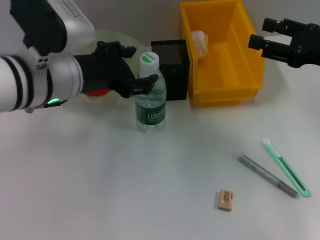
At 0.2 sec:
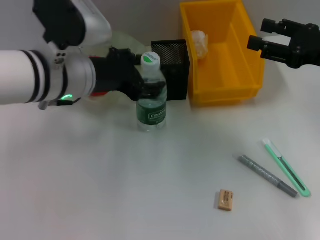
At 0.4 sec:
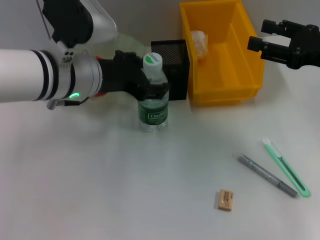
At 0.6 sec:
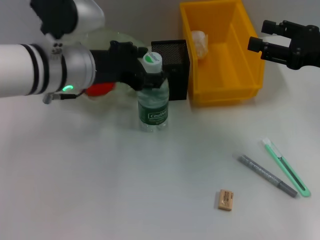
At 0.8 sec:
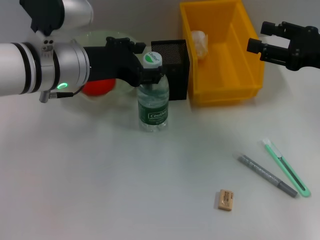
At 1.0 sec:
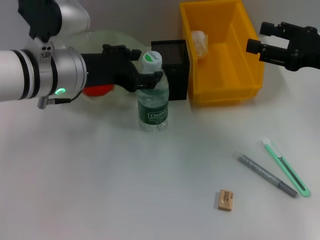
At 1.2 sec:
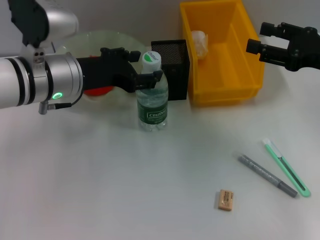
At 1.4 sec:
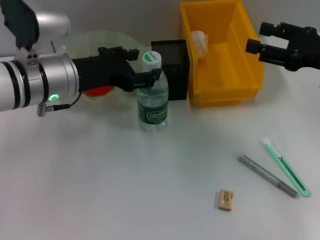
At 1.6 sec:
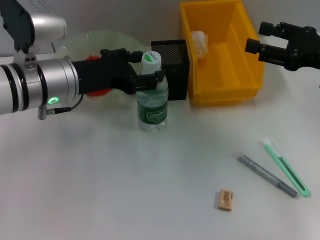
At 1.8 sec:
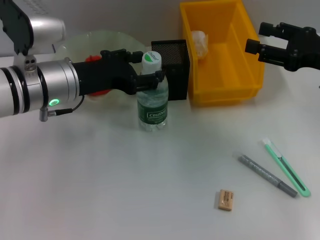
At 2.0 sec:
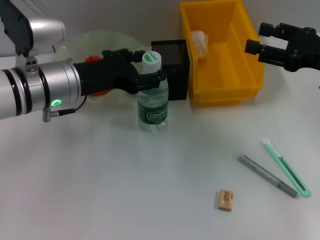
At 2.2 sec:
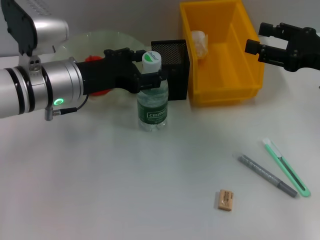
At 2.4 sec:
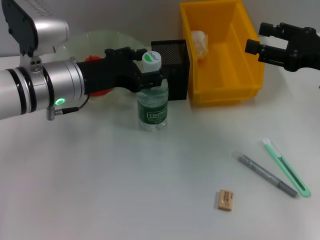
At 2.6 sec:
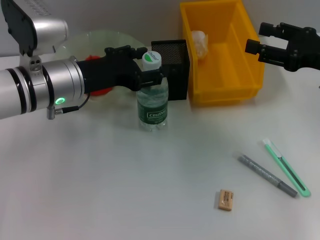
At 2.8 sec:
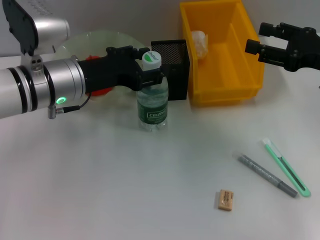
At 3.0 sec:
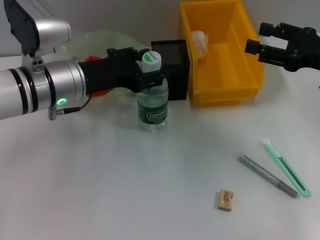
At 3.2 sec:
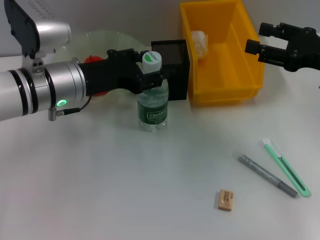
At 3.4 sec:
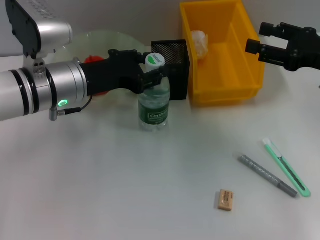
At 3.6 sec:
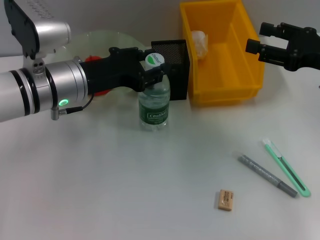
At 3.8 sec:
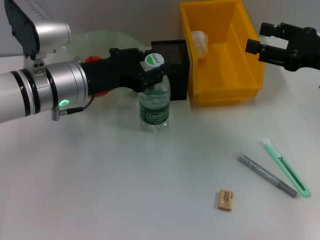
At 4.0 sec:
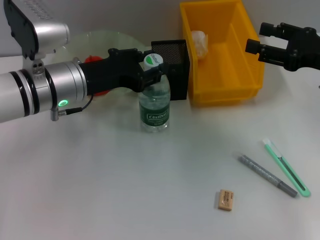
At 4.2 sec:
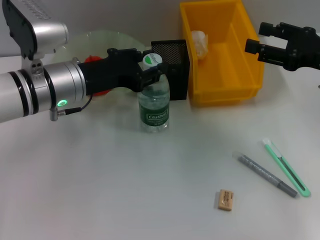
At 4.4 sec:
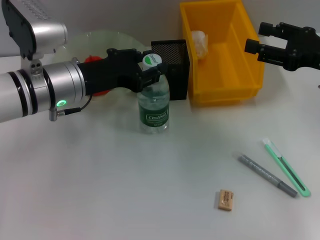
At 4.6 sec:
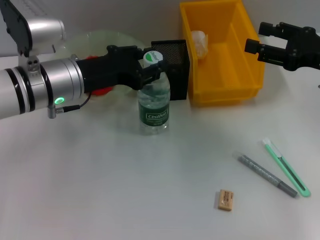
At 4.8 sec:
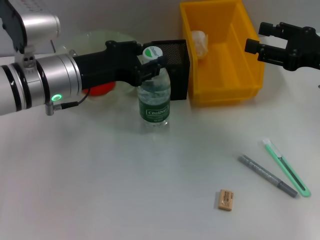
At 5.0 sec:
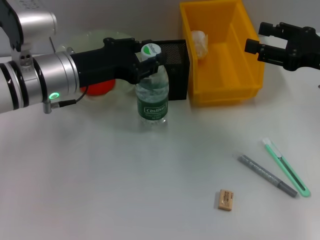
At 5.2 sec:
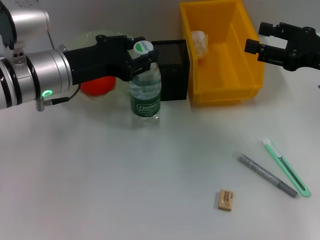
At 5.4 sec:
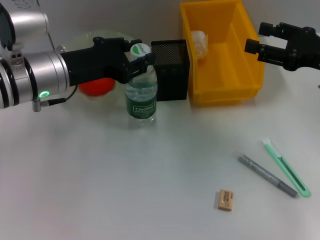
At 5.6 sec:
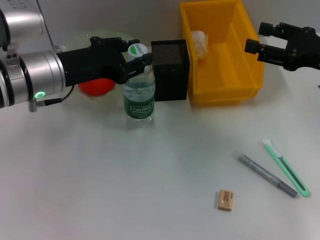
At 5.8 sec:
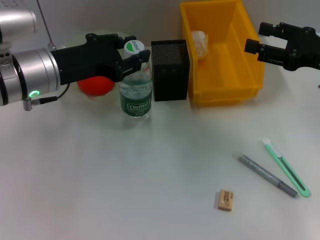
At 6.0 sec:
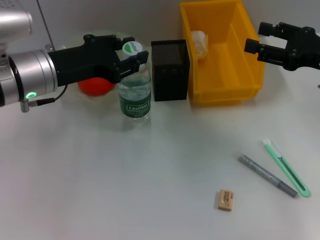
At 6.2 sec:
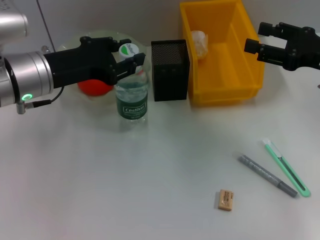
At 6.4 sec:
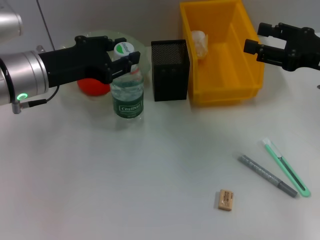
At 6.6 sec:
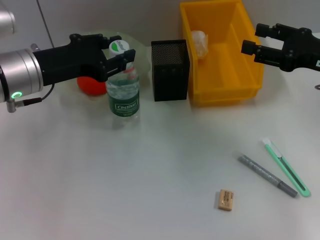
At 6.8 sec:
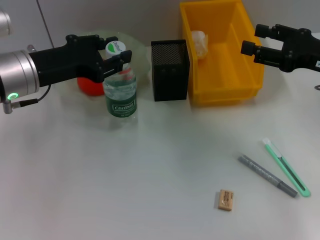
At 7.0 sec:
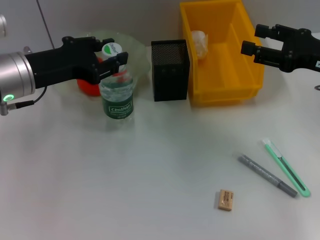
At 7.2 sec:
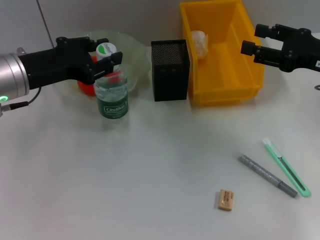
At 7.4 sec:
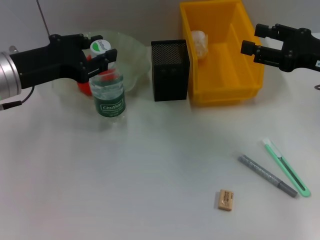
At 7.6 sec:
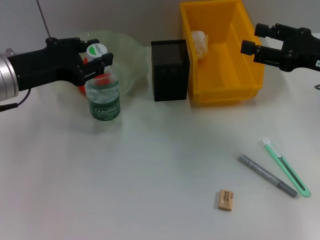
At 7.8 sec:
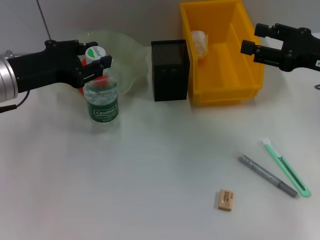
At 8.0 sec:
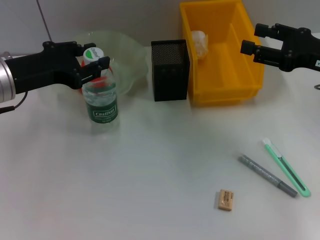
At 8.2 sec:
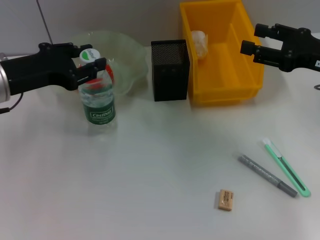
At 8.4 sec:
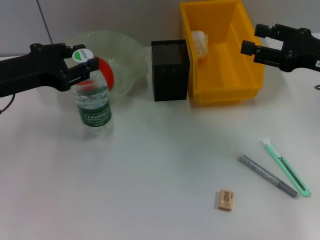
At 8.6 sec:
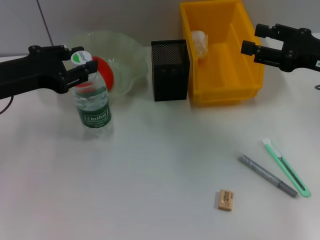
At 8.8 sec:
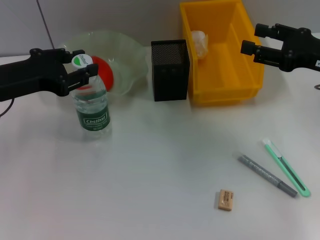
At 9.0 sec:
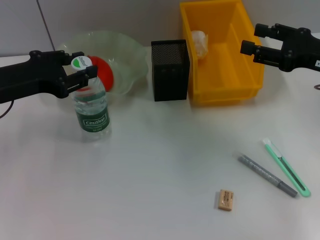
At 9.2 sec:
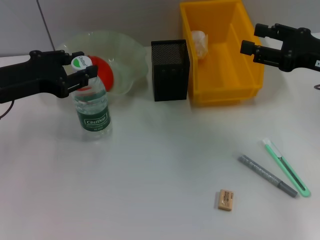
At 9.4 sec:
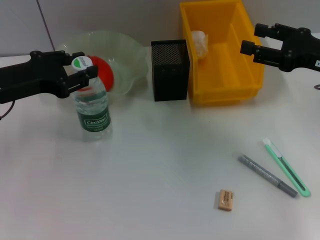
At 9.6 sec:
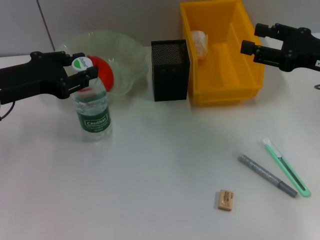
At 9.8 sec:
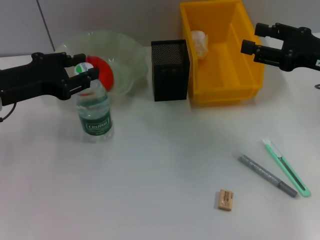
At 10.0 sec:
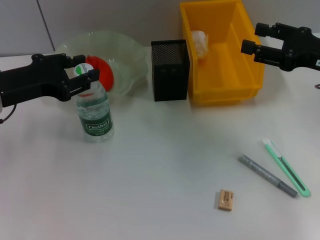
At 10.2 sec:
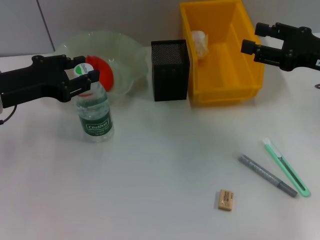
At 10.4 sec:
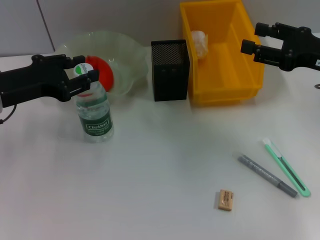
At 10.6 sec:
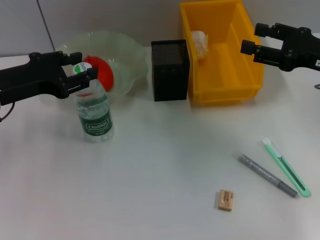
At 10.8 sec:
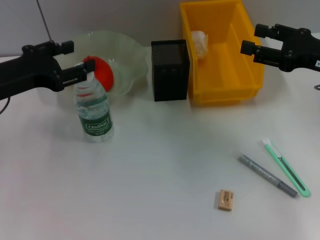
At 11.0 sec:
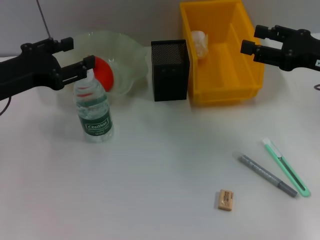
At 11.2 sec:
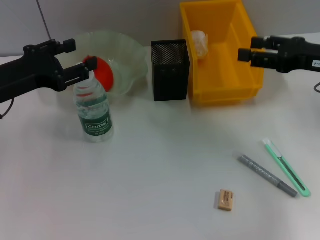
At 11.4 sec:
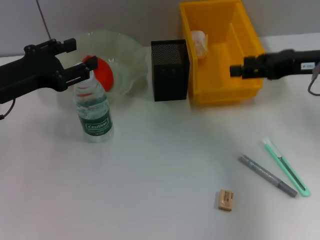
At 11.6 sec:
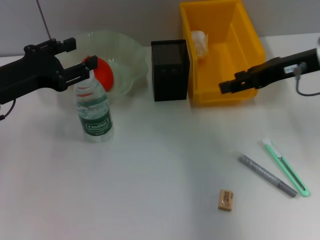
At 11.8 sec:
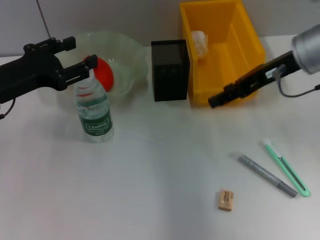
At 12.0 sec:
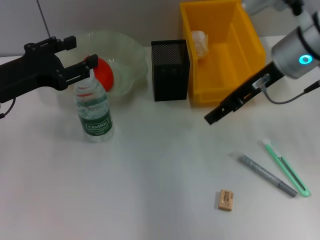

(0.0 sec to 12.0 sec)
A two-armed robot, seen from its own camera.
Step, 0.0 sec - 11.6 sec: Place the water bottle on the table with the left hand.
0.0 sec - 1.6 sec: The grippers move only a little.
1.6 sec - 3.0 sec: Both grippers stay about where they are.
3.0 sec - 4.4 sec: The left gripper closes.
4.4 sec - 6.0 sec: There are only small adjustments of the grippers.
6.0 sec - 7.6 sec: The grippers move only a little.
7.6 sec - 9.0 sec: The grippers move only a little.
9.0 sec - 10.4 sec: Both grippers stay put.
10.4 sec - 12.0 sec: The right gripper shifts some 10 cm to the left and forward.

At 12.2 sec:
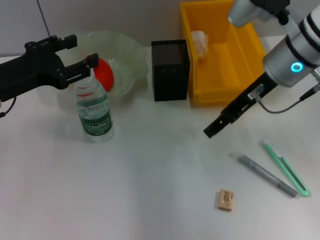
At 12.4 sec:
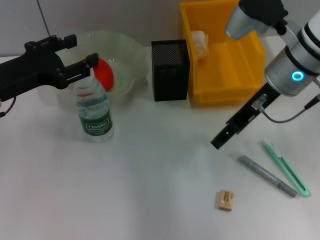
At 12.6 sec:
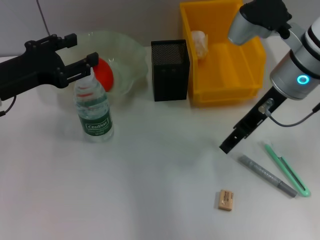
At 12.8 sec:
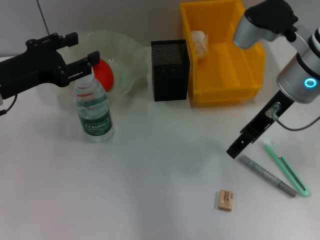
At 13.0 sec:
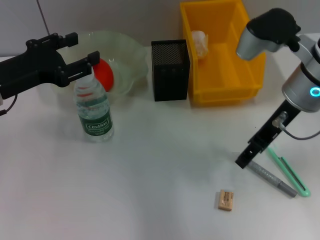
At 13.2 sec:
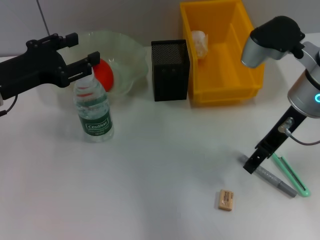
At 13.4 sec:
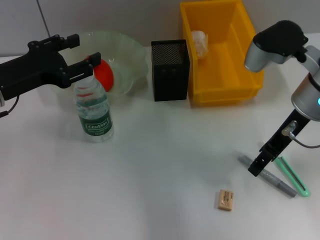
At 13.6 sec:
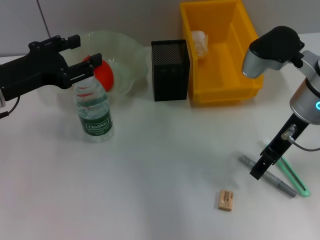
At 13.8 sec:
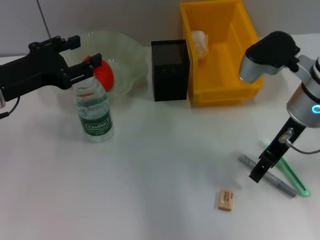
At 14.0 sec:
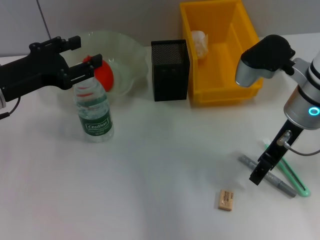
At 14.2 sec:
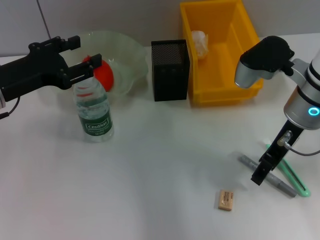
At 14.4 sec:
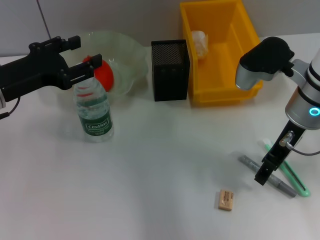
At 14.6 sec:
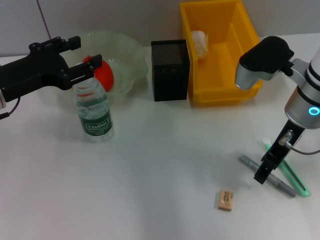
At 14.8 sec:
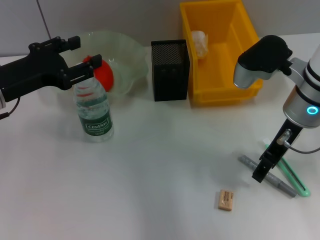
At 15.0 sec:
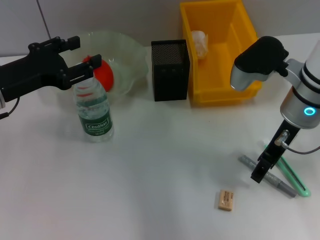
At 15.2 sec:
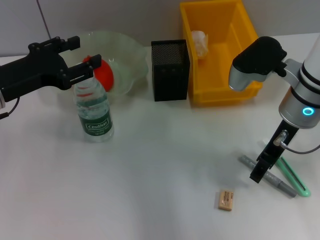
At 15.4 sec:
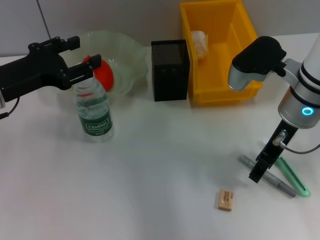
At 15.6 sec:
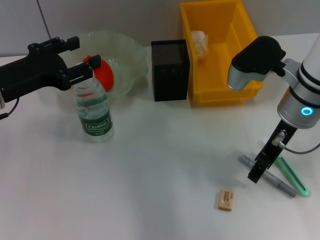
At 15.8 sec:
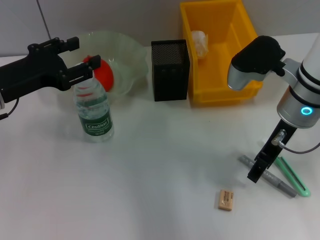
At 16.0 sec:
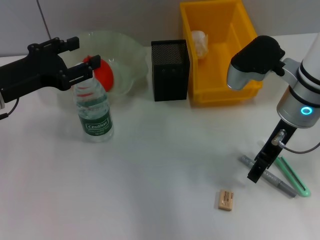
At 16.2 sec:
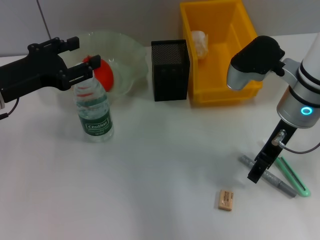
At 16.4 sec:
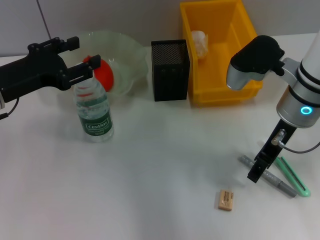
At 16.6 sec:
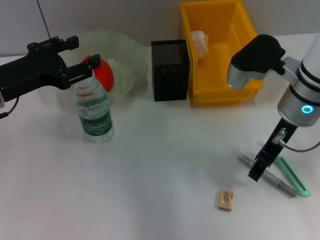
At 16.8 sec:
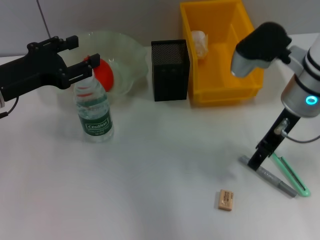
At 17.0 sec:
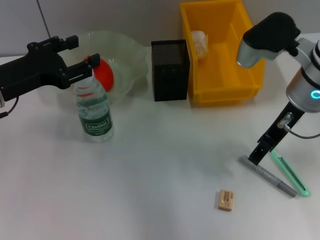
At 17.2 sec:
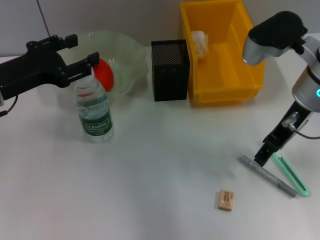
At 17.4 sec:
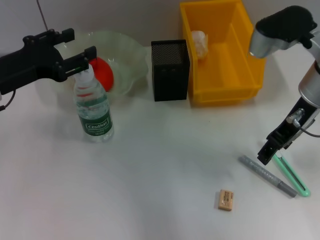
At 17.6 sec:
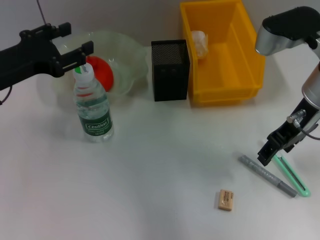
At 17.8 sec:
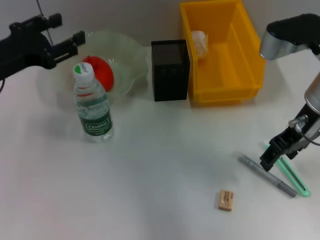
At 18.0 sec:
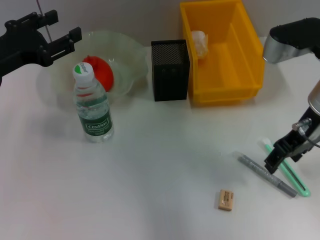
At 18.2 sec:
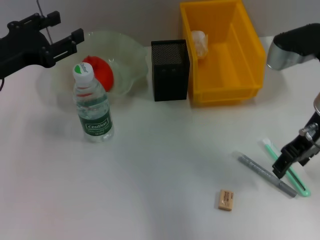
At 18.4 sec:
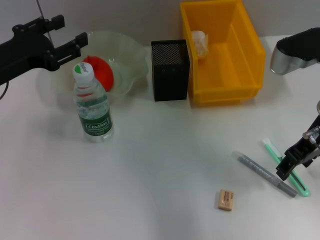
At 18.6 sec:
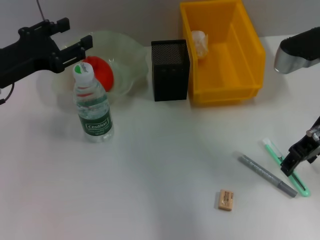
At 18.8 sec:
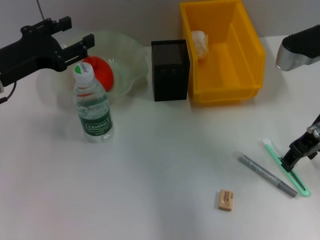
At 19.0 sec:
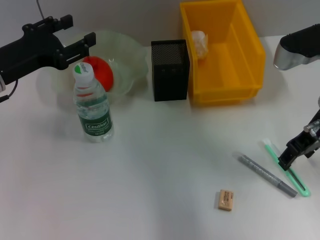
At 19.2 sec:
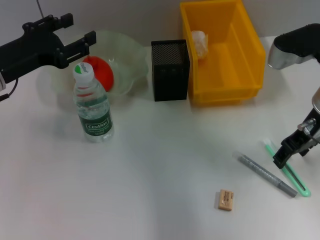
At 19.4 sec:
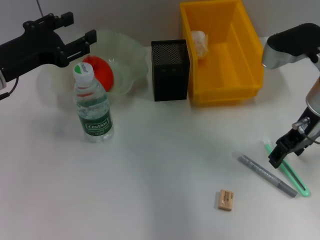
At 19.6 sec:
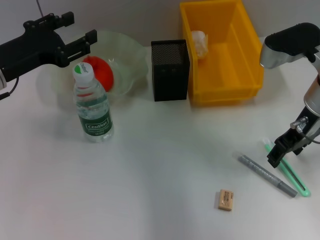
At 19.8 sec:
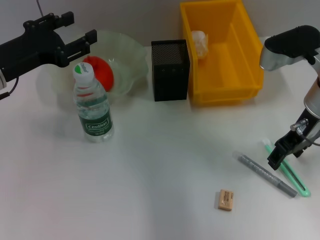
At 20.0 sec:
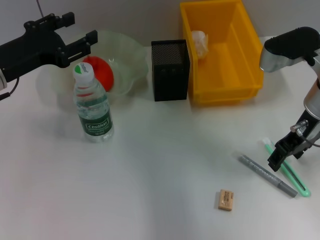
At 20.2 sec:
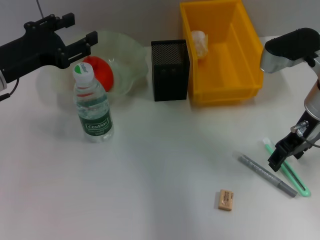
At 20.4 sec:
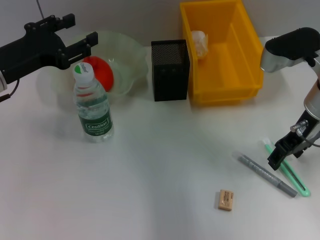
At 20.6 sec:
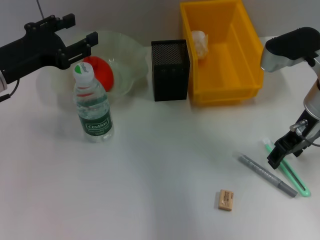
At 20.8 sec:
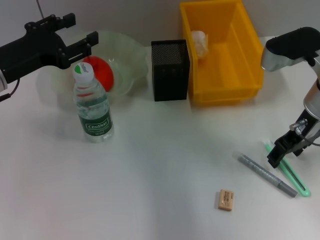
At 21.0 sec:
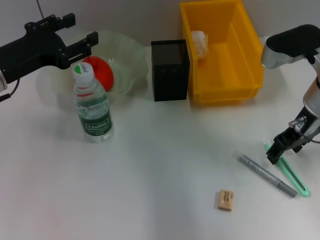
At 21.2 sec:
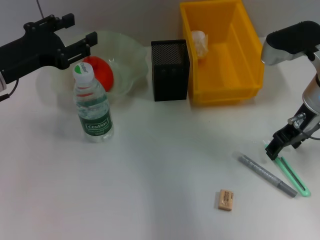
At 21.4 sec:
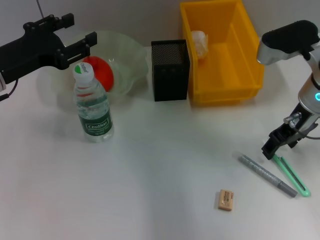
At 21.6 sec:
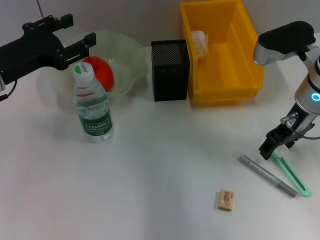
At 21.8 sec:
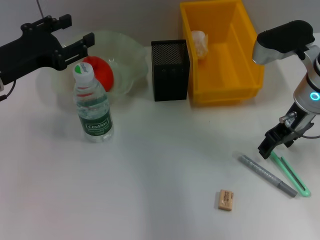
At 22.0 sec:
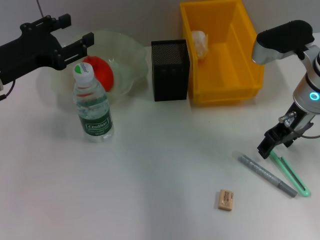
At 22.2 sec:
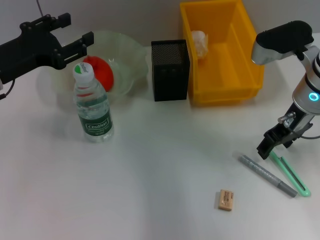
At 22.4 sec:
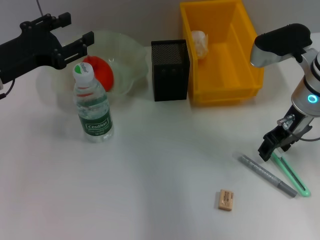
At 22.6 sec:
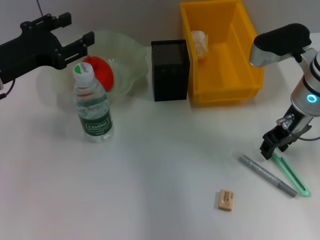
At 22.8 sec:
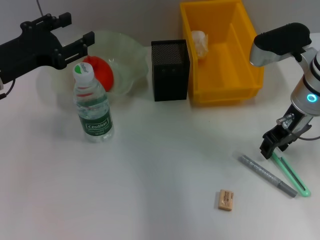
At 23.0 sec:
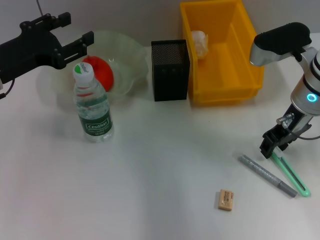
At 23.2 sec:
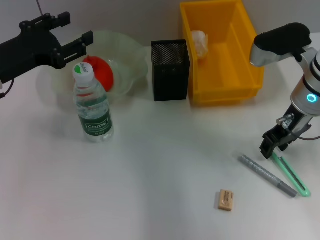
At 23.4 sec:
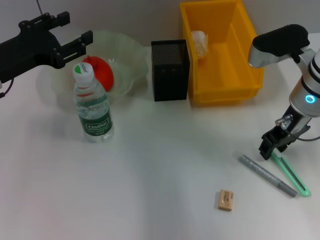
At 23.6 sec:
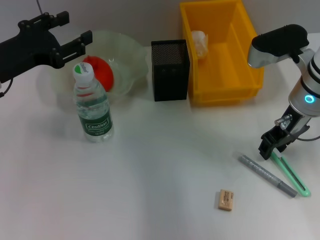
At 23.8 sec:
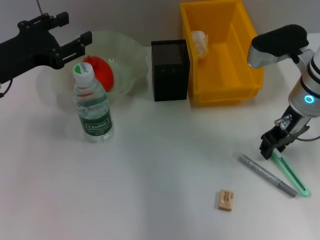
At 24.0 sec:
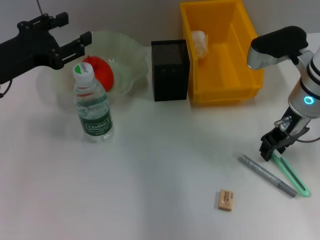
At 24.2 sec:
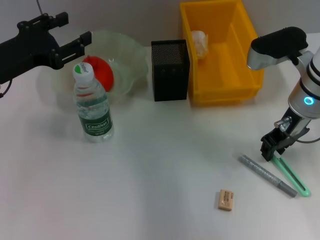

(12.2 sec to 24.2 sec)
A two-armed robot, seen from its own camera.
12.2 sec - 13.8 sec: The right gripper ends up approximately 5 cm from where it was.
13.8 sec - 15.2 sec: There are only small adjustments of the grippers.
15.2 sec - 16.6 sec: The two grippers keep their place.
18.2 sec - 19.8 sec: The grippers move only a little.
19.8 sec - 21.2 sec: The two grippers keep their place.
21.2 sec - 22.6 sec: The grippers move only a little.
22.6 sec - 24.2 sec: The right gripper closes its fingers.
